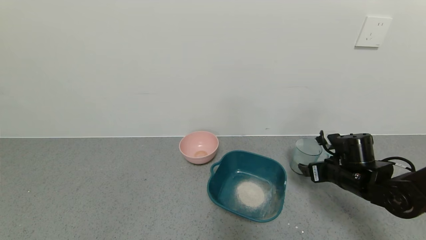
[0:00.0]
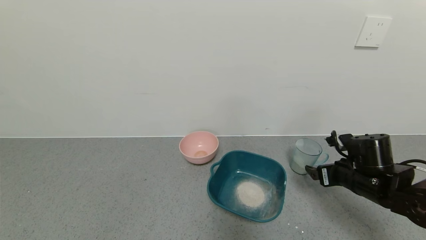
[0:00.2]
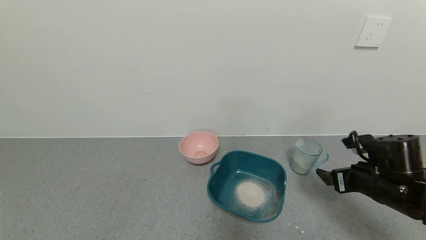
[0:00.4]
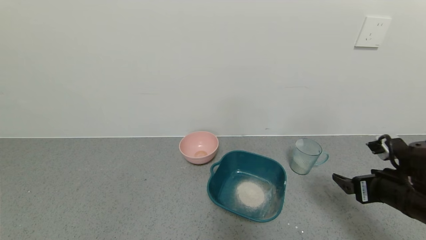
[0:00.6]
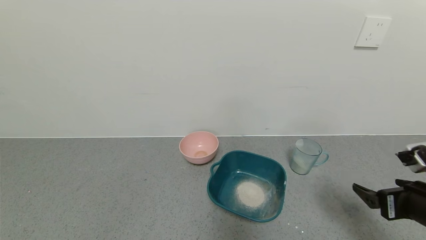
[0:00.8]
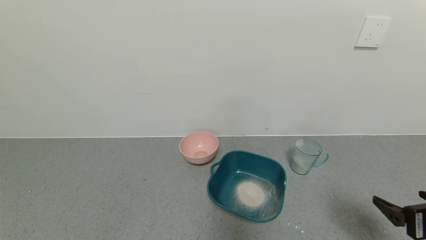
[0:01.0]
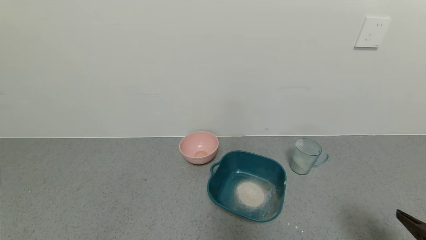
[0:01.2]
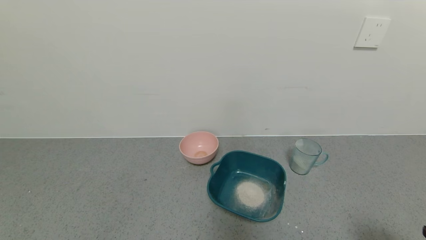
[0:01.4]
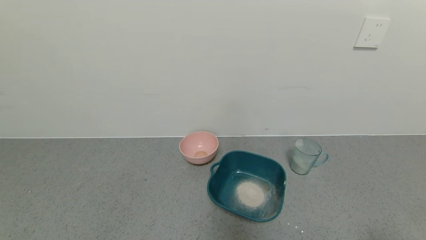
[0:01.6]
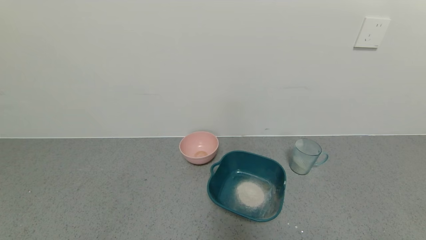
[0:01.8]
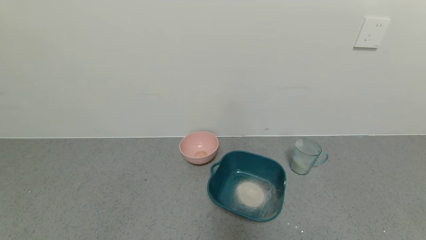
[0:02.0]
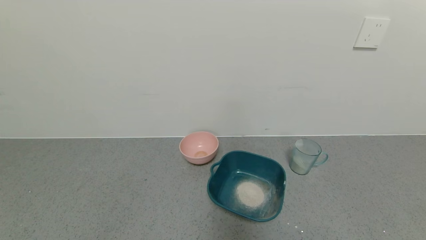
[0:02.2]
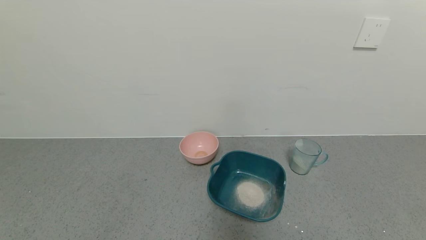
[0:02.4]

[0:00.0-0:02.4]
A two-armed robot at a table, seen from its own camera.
Task of the whole recording: use a gripper to pick up the cup and pour the powder into a bowl or tray.
0:00.0 to 0:01.2: The right gripper goes roughly 20 cm backward.
0:01.2 to 0:02.4: The right gripper is displaced backward by some 15 cm.
